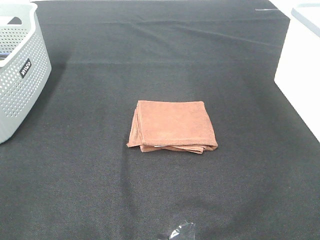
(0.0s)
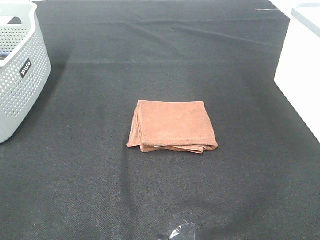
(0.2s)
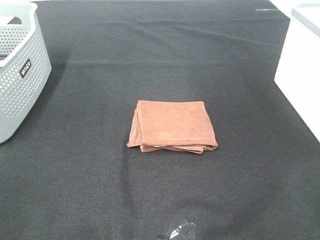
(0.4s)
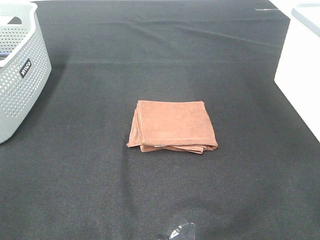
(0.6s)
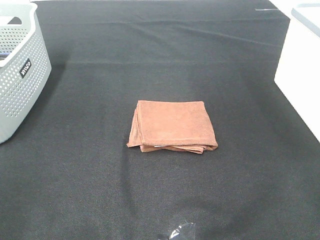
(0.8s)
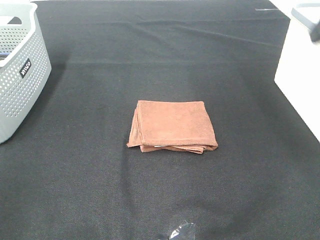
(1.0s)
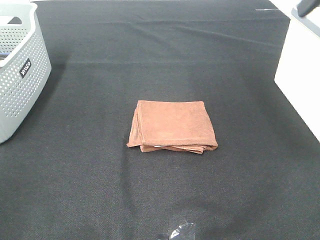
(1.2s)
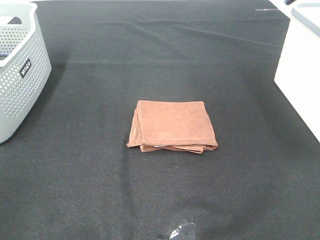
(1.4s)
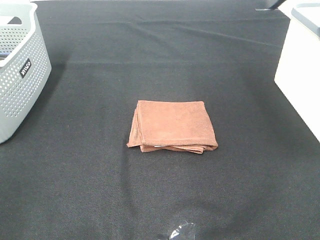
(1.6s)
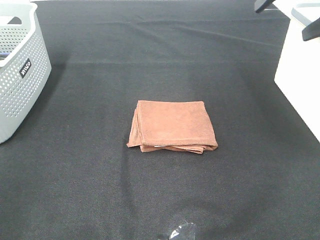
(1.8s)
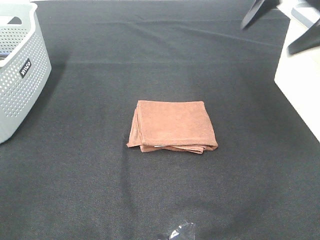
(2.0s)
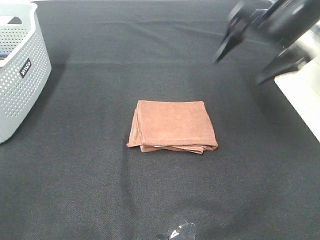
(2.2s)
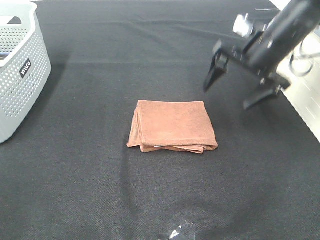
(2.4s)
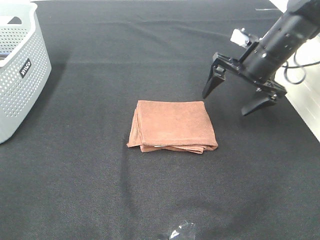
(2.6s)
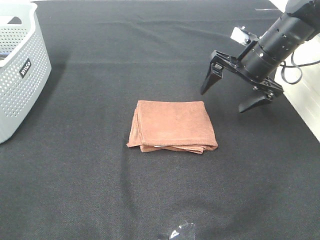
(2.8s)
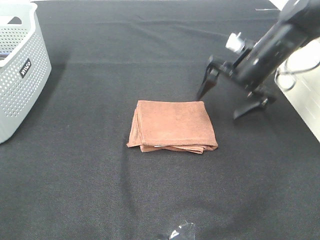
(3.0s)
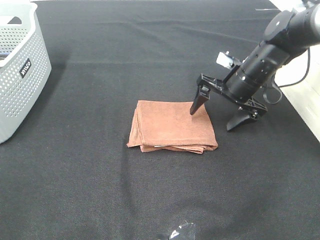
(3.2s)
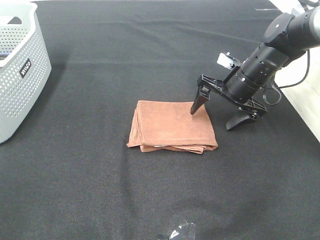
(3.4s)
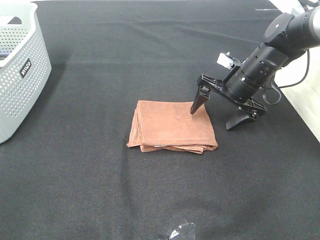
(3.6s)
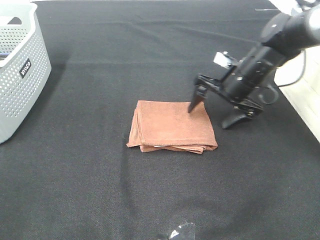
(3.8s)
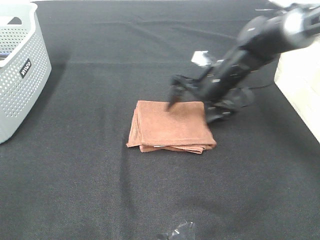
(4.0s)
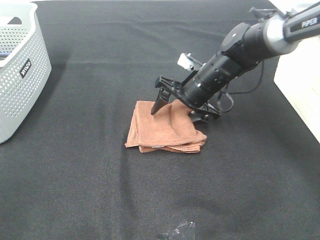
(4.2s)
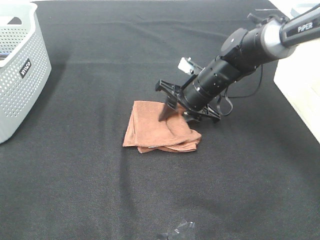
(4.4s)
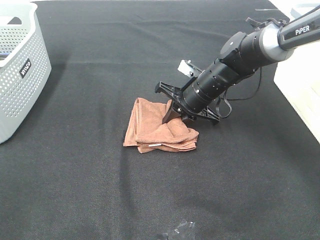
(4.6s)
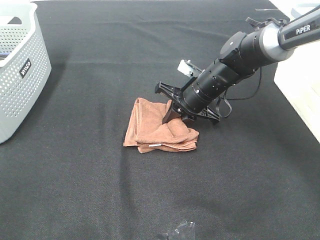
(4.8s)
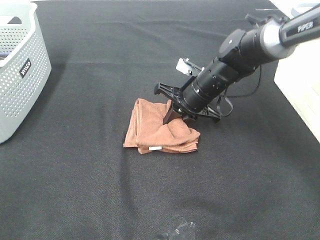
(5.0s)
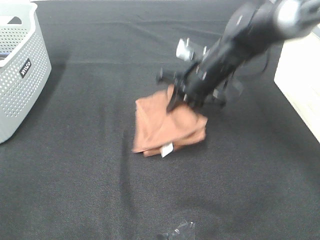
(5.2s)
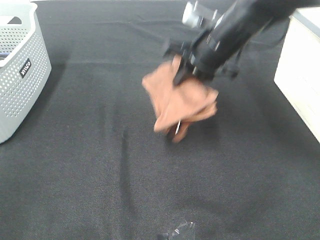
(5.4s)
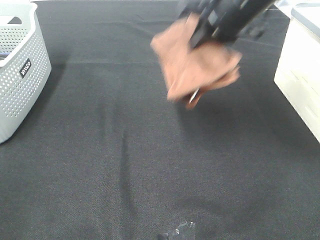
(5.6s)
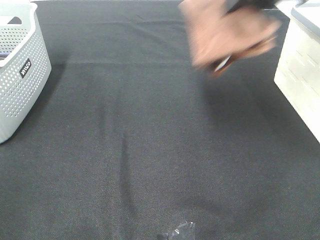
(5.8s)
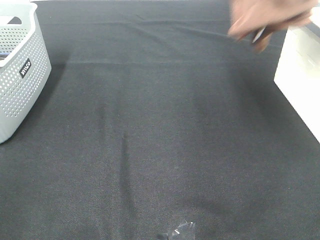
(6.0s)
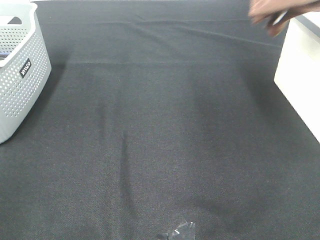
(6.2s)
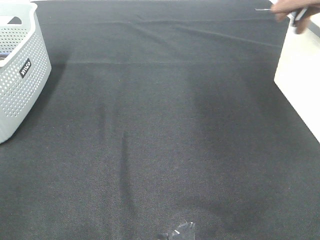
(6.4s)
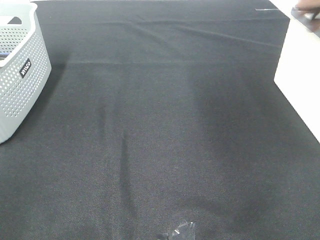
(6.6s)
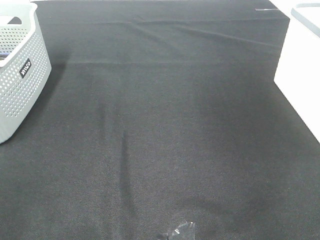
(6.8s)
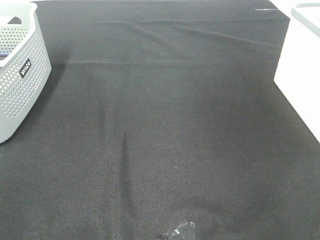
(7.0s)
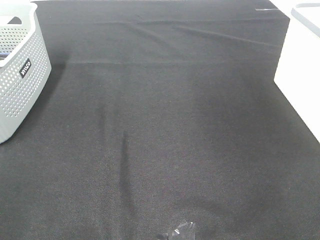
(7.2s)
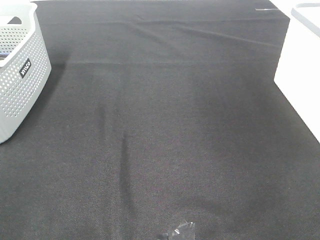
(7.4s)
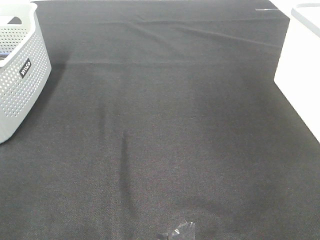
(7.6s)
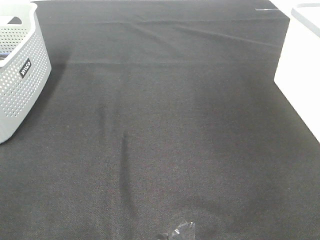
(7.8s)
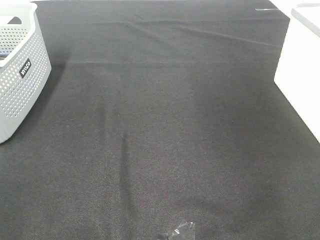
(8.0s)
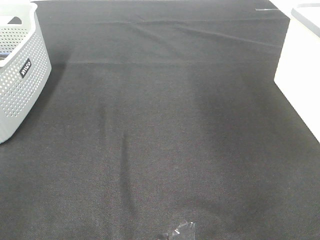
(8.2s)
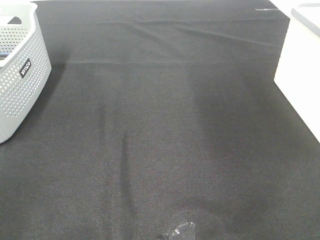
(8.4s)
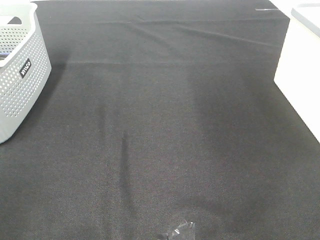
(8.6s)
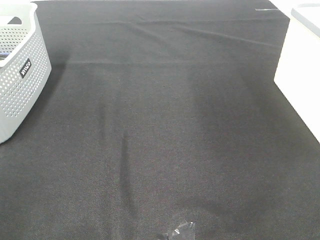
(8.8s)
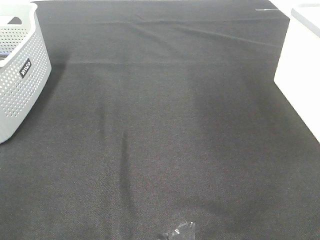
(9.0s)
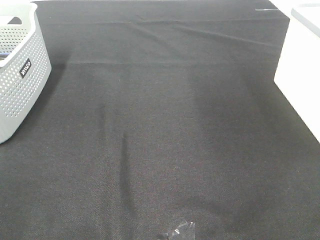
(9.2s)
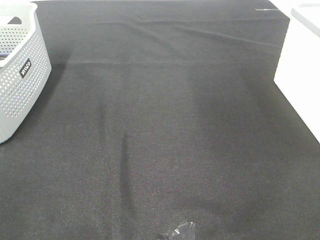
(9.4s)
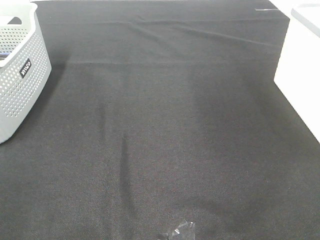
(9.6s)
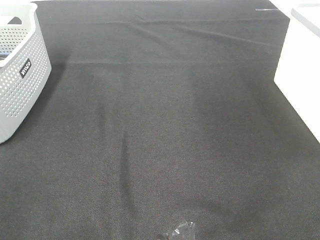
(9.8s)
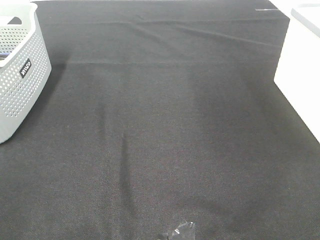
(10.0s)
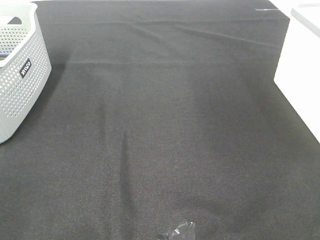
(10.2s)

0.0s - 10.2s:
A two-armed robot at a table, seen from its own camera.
Step, 0.0s - 4.6s: Right hand: grab the folded brown towel.
Step, 4.8s - 7.6s: Right hand: place the brown towel in right basket.
1.4s - 3.0s: The right gripper heads downward and forward, covering approximately 25 cm.
3.0s - 4.4s: The right gripper moves to the left and downward, some 10 cm, and closes.
4.4s - 5.8s: The right gripper travels upward by some 25 cm.
5.8s - 7.2s: The right gripper goes roughly 25 cm to the right.

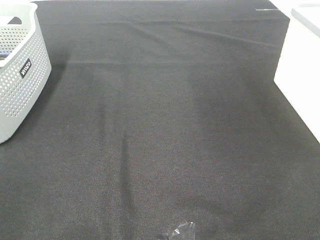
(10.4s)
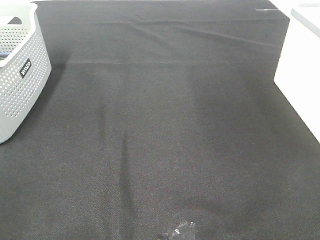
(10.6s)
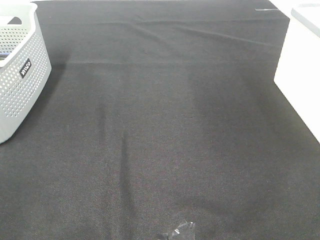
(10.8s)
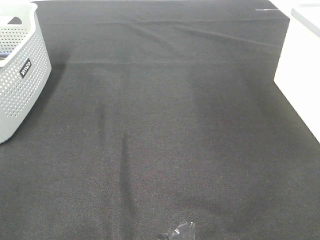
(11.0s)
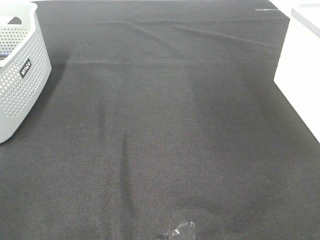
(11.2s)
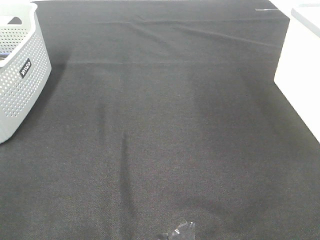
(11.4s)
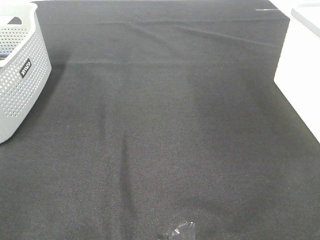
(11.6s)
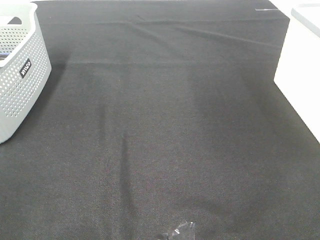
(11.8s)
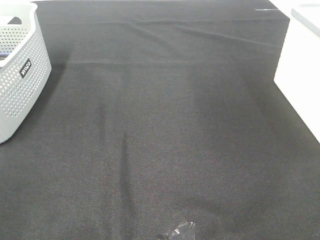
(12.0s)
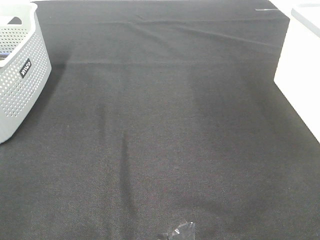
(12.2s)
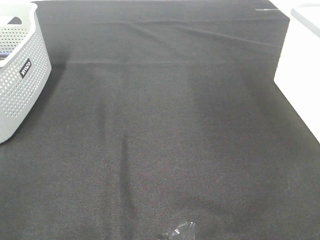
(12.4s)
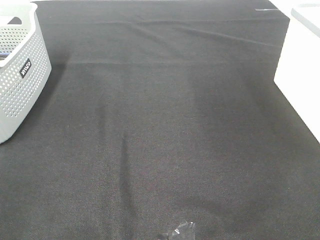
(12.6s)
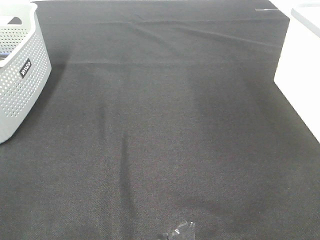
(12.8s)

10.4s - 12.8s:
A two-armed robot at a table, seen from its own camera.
10.4s - 12.8s: Both grippers stay about where they are.

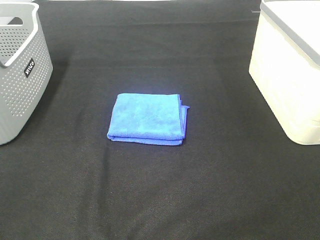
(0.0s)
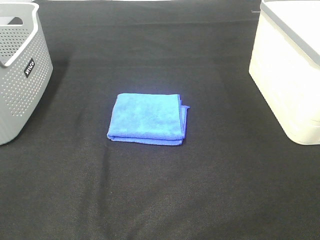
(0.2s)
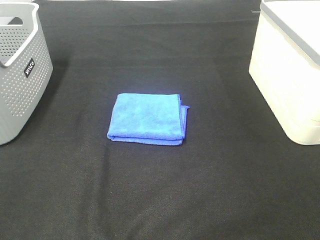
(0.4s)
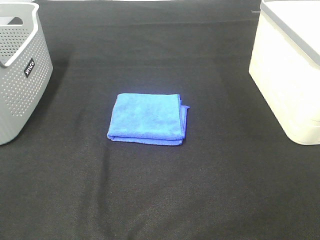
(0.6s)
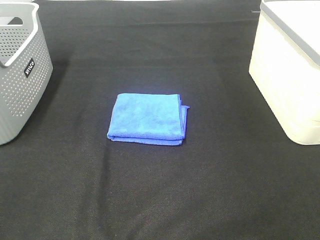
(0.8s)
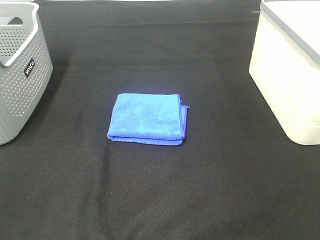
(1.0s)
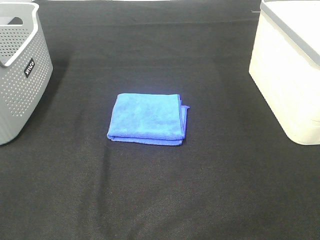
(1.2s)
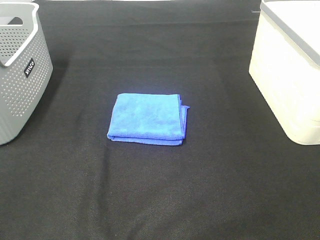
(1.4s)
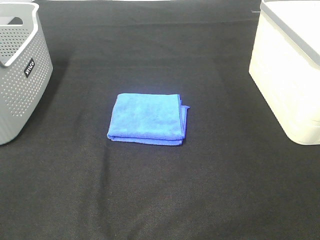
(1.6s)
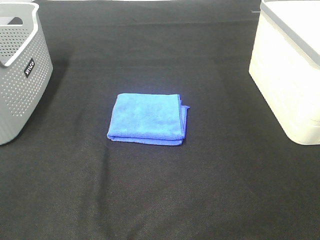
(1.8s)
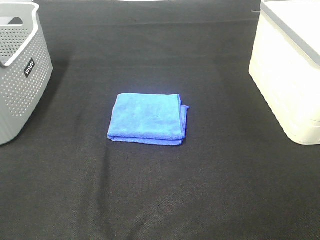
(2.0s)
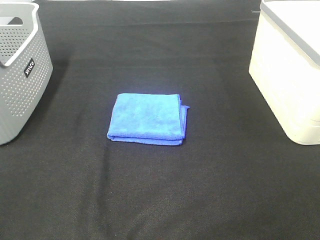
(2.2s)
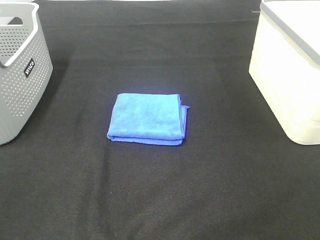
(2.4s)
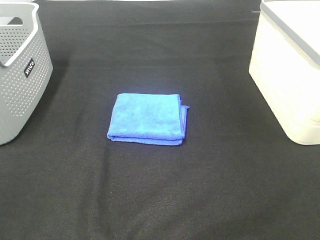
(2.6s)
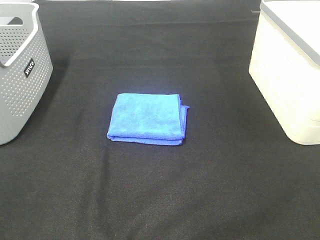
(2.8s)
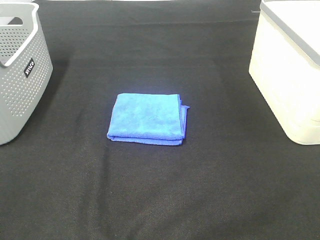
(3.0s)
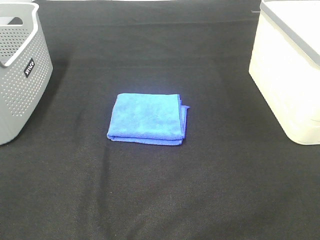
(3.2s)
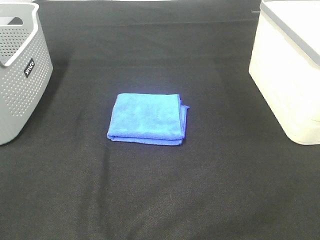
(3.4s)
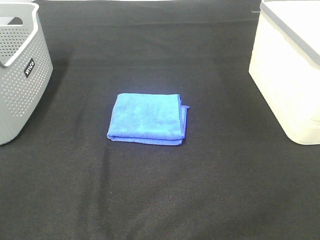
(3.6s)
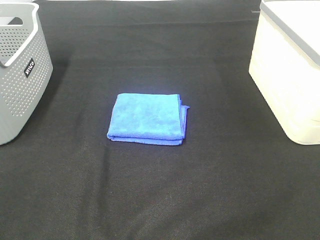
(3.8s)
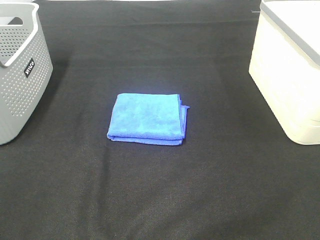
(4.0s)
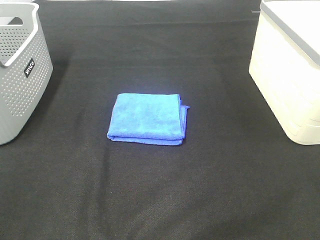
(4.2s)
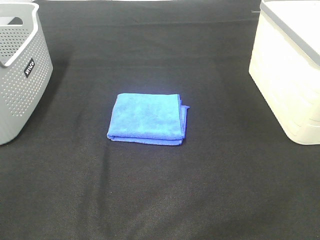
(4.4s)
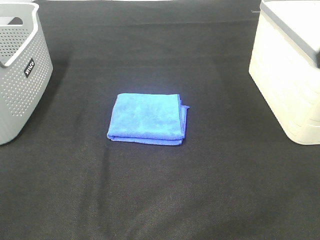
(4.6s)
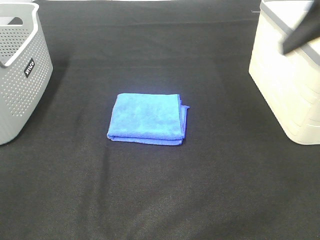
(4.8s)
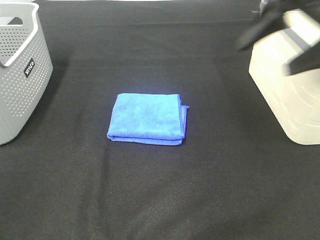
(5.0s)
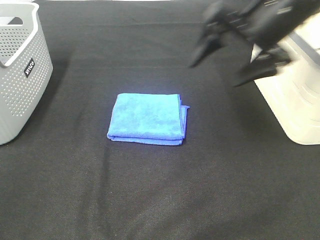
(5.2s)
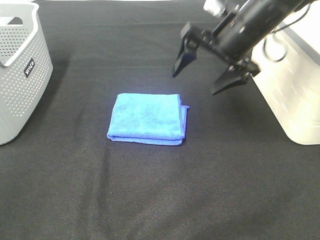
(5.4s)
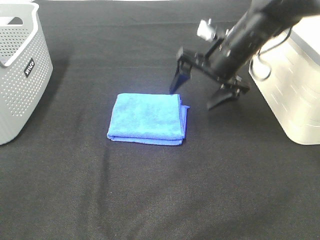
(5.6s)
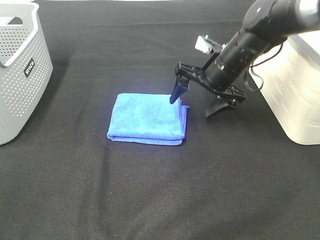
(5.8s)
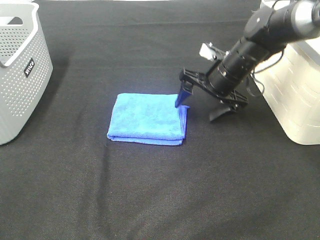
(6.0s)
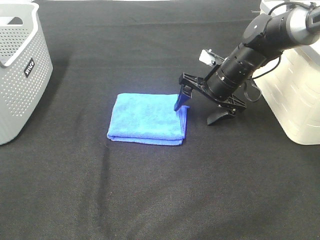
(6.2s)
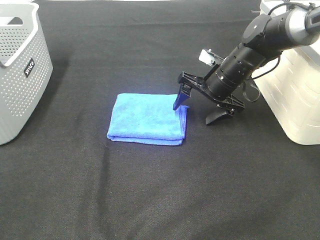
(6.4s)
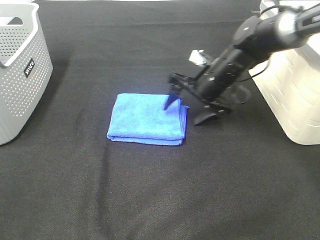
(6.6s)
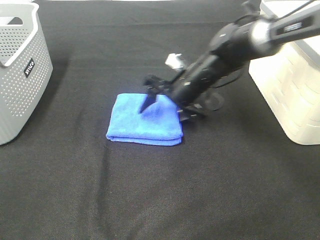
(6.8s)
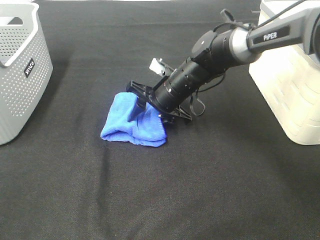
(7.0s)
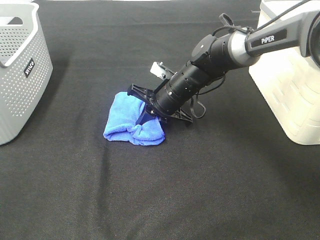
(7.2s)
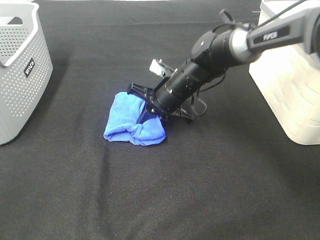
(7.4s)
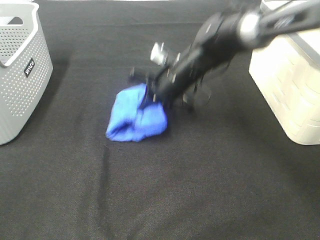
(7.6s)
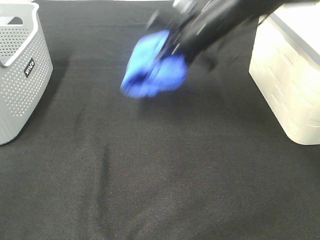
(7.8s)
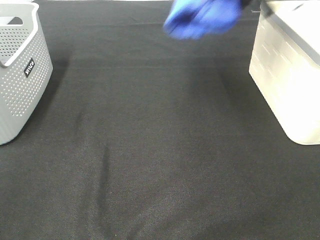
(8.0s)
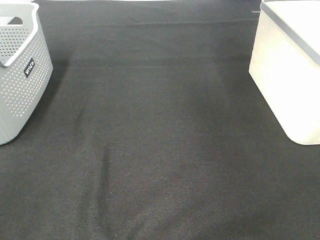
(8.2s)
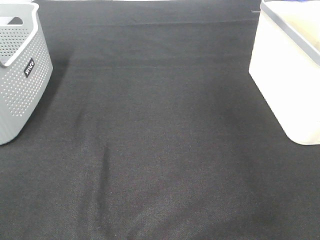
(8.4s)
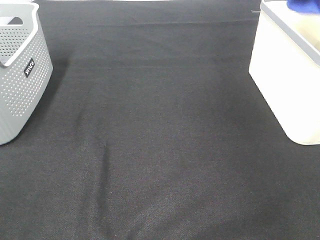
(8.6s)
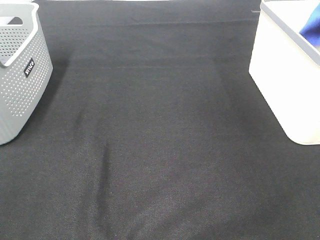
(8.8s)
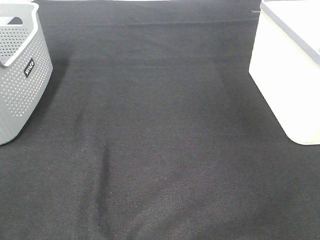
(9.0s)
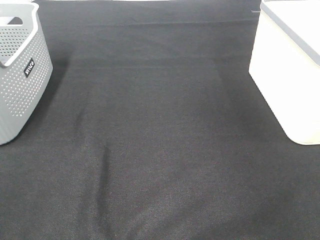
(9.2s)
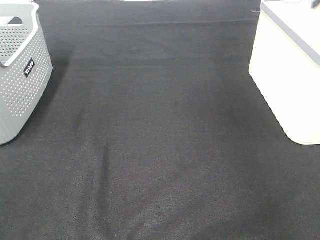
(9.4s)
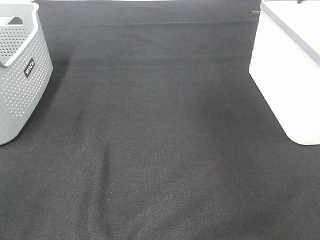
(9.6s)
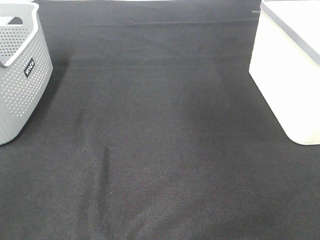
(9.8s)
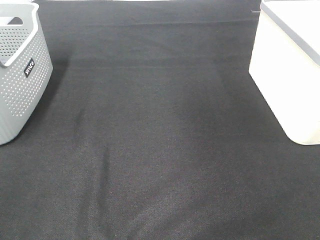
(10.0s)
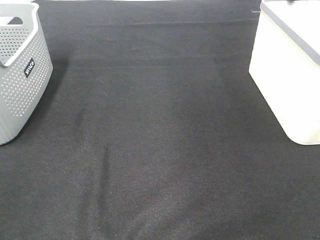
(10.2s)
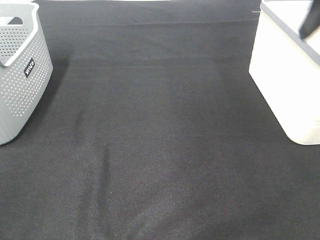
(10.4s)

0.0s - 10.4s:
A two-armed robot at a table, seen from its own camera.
Step, 0.0s - 7.2s: Right hand: grab the folded blue towel.
Step, 7.4s - 9.2s: Right hand: place the blue towel in right basket.
0.0s - 3.0s: Neither gripper changes place.
4.4s - 6.0s: The right gripper shifts approximately 35 cm downward, forward and to the left.
6.0s - 7.4s: The right gripper shifts about 10 cm to the left, and closes.
7.4s - 9.0s: The right gripper shifts roughly 40 cm to the right and upward, and opens.
9.0s - 10.4s: The right gripper goes approximately 25 cm backward, to the left and upward.
